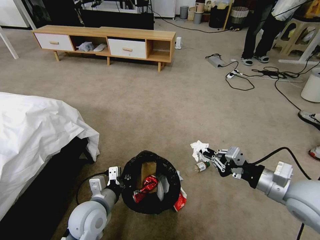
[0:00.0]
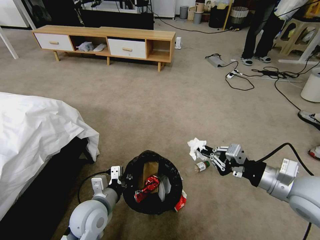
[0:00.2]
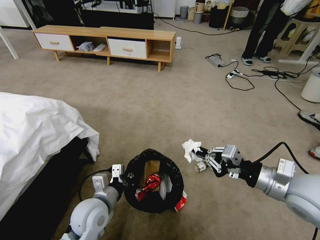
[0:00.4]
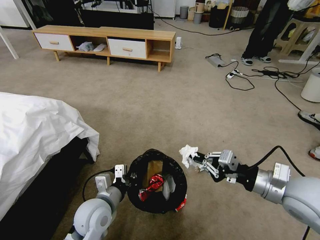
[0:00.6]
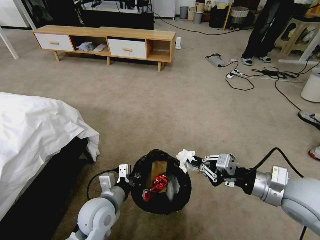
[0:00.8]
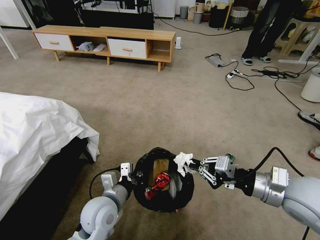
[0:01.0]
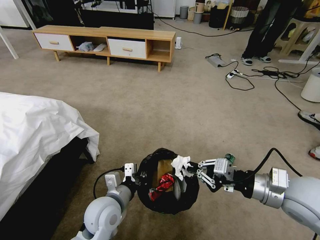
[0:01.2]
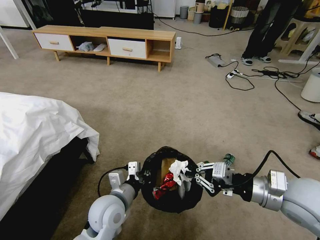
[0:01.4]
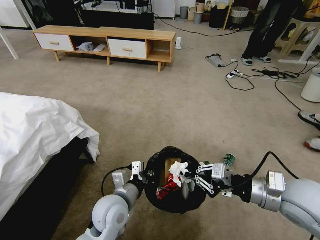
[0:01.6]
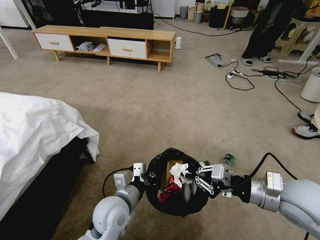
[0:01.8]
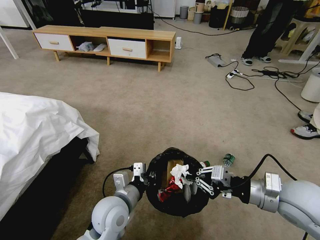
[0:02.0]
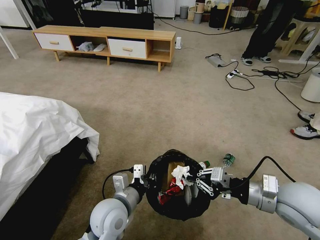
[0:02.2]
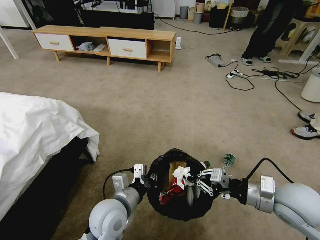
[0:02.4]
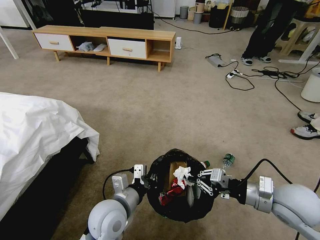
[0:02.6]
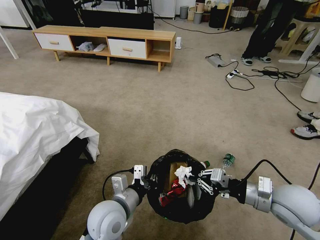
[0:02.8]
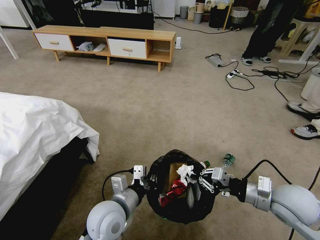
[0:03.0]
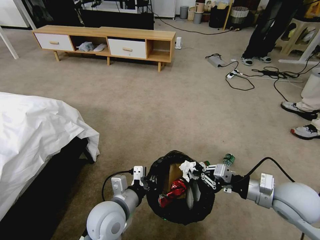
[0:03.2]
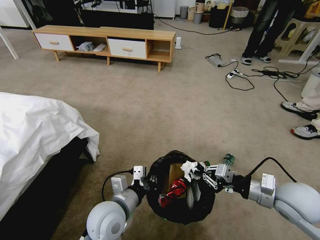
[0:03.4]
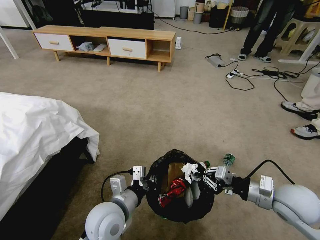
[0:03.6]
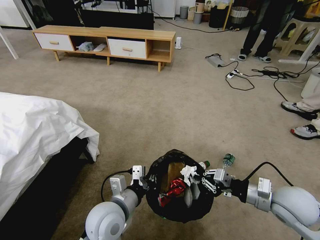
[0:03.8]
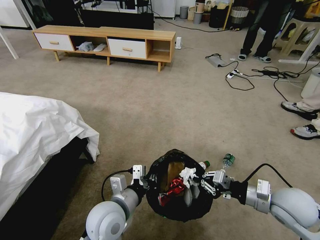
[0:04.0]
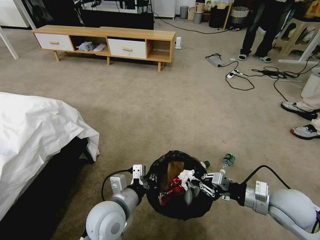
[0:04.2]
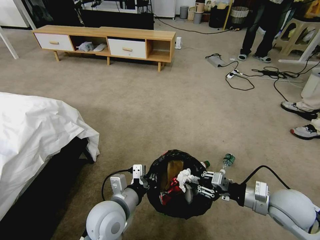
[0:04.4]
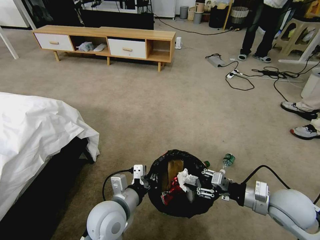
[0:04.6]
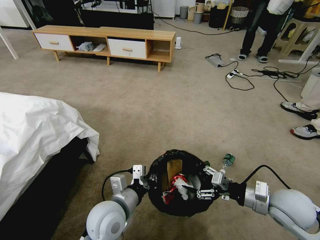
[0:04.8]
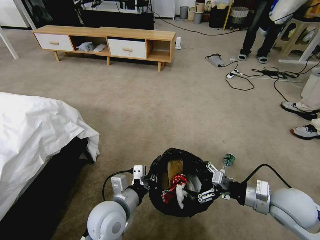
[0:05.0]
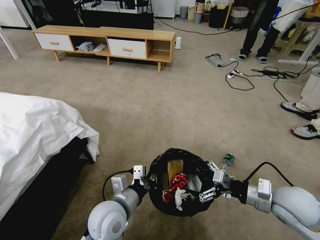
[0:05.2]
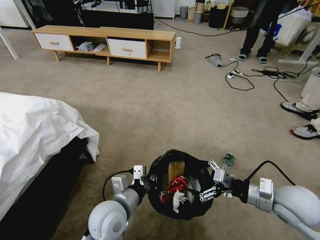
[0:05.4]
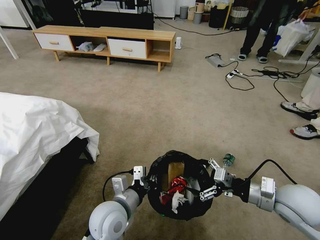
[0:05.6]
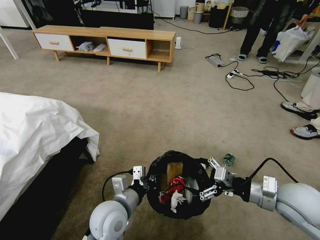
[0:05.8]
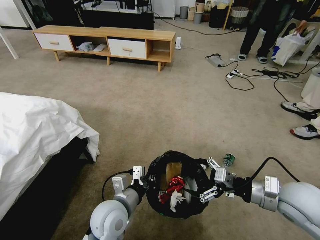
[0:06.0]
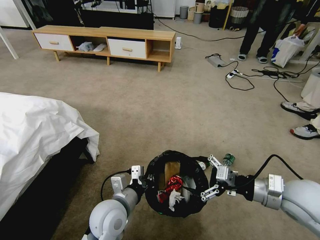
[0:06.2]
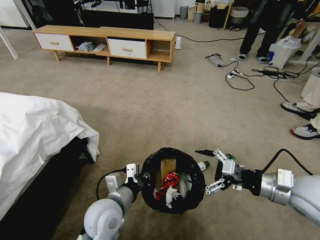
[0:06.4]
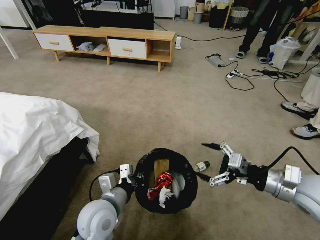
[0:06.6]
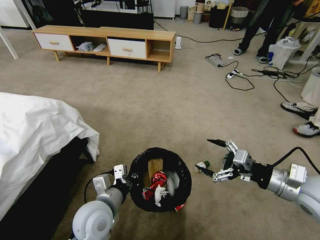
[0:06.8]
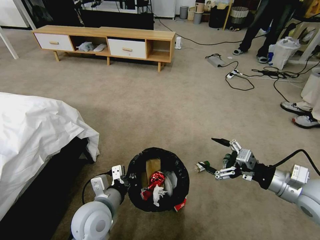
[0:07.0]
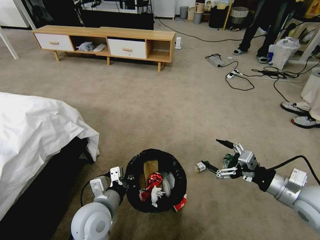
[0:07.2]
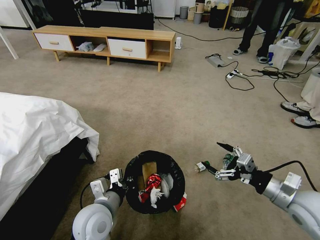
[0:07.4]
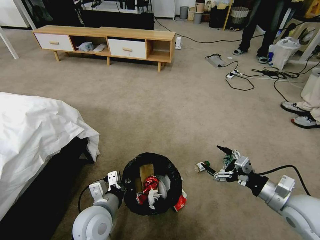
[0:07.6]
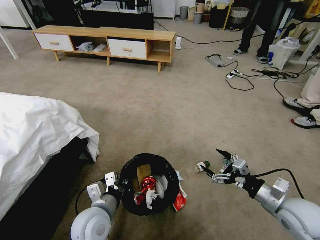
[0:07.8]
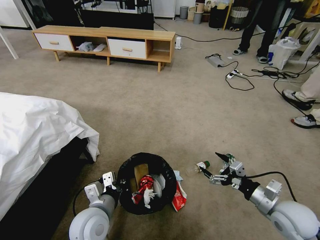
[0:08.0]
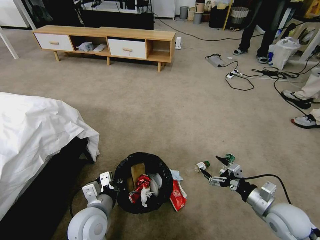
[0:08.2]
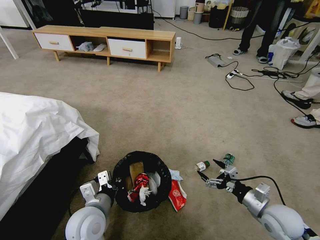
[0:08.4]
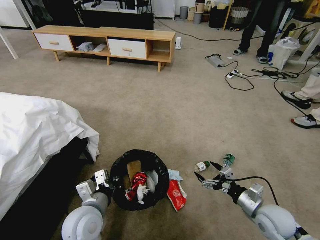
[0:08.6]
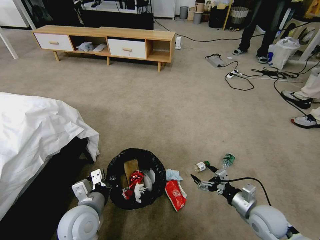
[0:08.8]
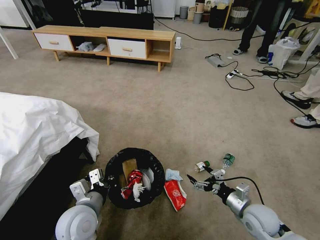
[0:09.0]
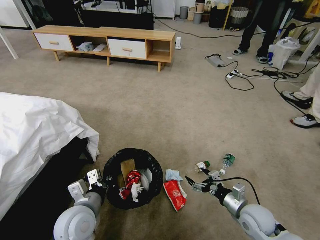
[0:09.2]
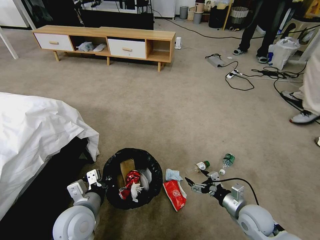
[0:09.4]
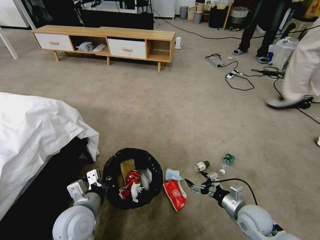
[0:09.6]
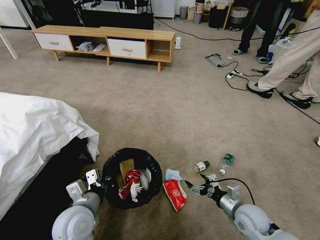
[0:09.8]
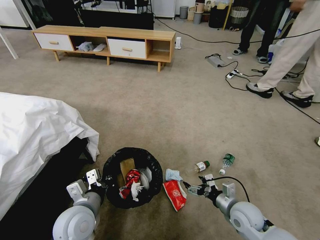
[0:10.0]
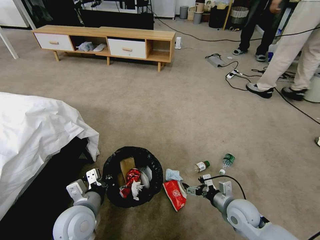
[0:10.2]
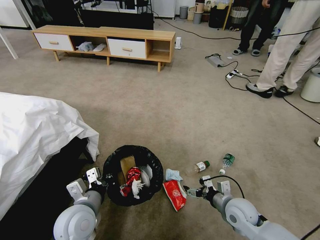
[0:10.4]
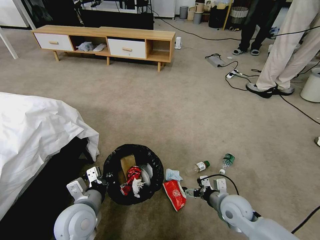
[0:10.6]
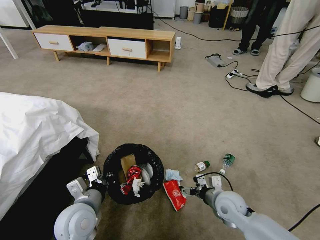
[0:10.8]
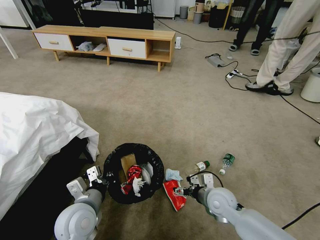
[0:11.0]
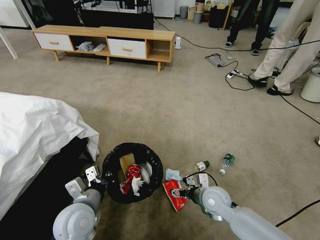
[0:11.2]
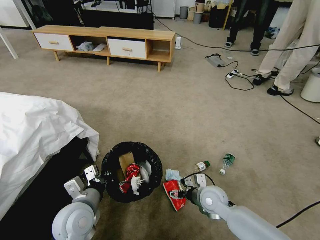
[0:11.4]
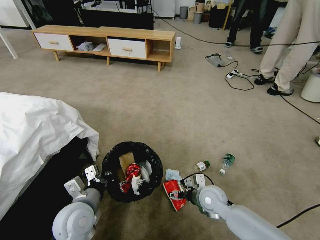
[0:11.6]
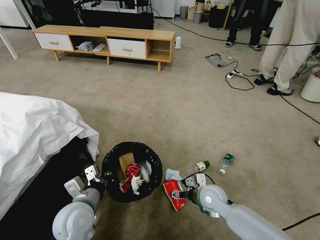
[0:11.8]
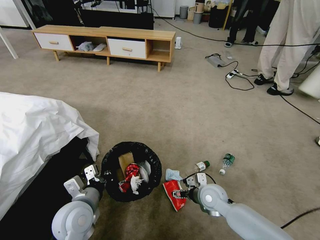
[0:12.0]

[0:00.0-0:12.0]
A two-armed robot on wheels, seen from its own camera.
Task of the whole recording: Pick up the trash bin and place the garbage on the floor into it.
0:00.0 to 0:01.6: The left gripper heads to the right, covering some 5 cm.
0:01.6 to 0:03.0: The right gripper goes roughly 5 cm downward.
0:03.0 to 0:04.4: The grippers stay close to where they were, moving slightly.
0:04.4 to 0:06.0: The right gripper opens.
0:06.0 to 0:07.6: The right gripper shifts by about 5 cm.
0:07.6 to 0:09.0: The right gripper travels downward and to the left by approximately 15 cm.
0:09.0 to 0:10.4: The right gripper shifts by roughly 5 cm.
0:10.4 to 0:12.0: The right gripper goes about 10 cm to the left and forward.

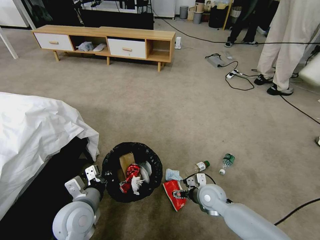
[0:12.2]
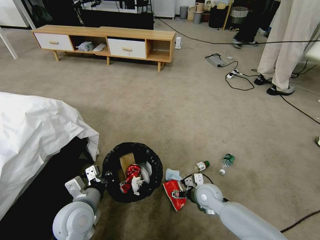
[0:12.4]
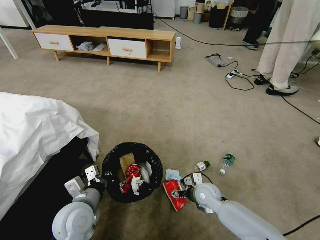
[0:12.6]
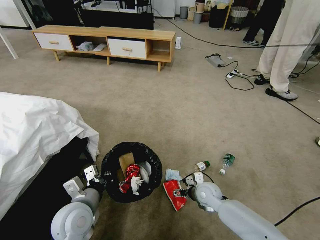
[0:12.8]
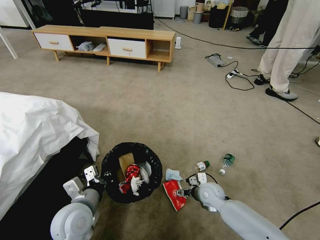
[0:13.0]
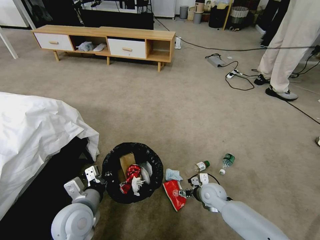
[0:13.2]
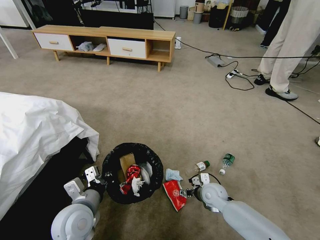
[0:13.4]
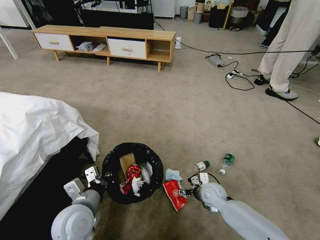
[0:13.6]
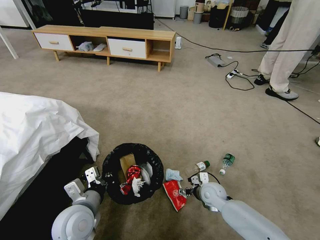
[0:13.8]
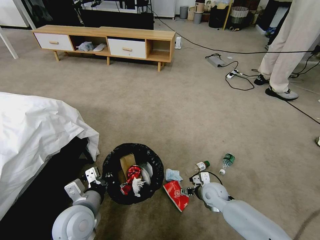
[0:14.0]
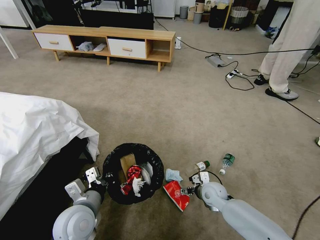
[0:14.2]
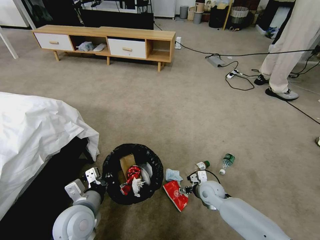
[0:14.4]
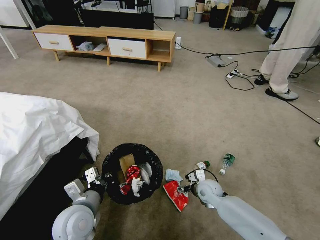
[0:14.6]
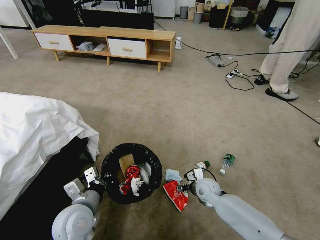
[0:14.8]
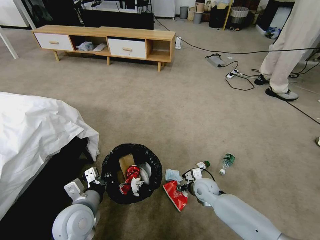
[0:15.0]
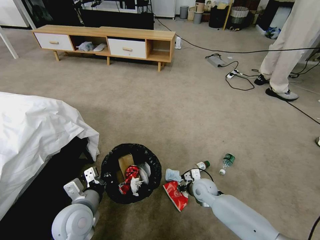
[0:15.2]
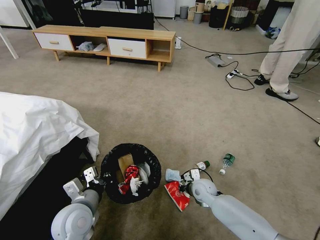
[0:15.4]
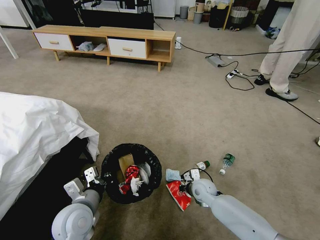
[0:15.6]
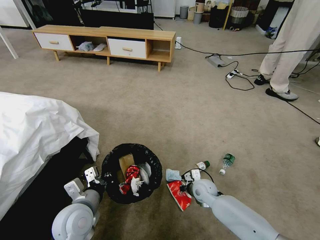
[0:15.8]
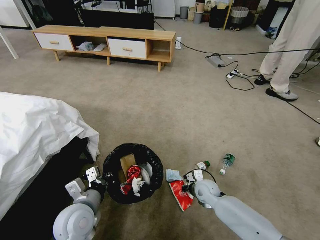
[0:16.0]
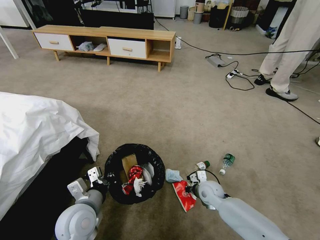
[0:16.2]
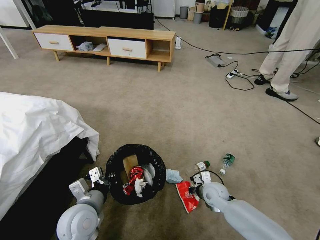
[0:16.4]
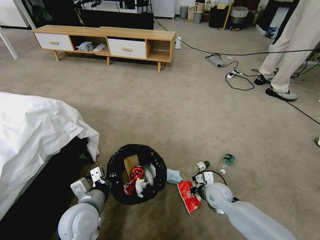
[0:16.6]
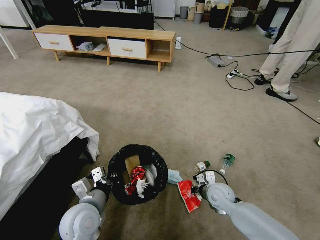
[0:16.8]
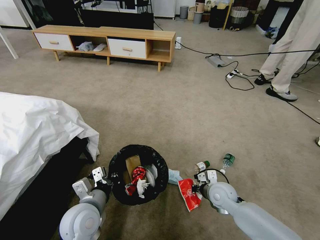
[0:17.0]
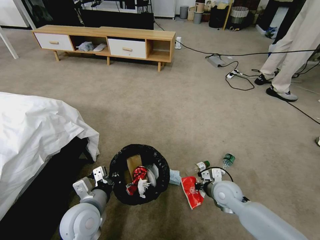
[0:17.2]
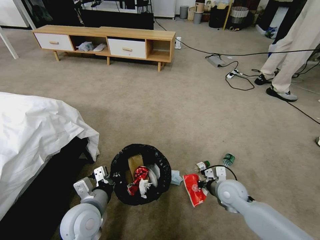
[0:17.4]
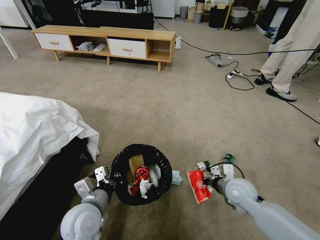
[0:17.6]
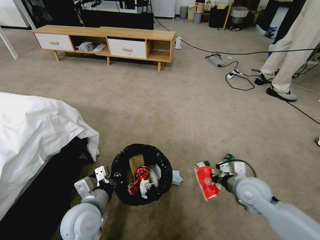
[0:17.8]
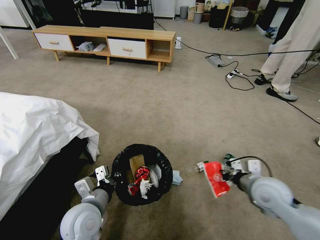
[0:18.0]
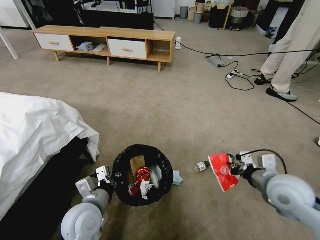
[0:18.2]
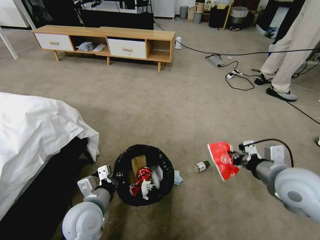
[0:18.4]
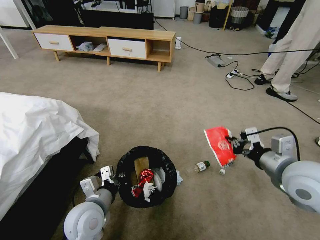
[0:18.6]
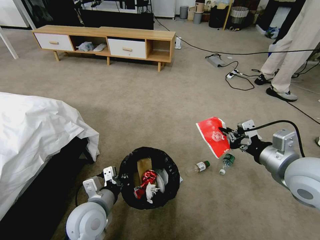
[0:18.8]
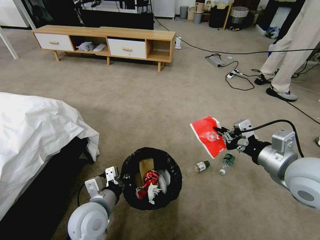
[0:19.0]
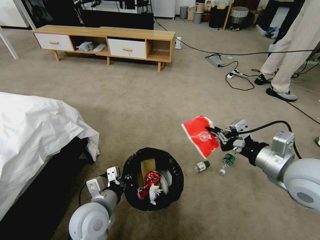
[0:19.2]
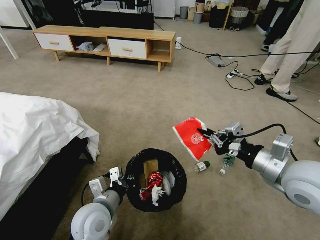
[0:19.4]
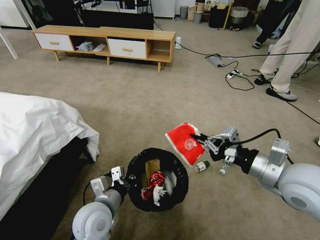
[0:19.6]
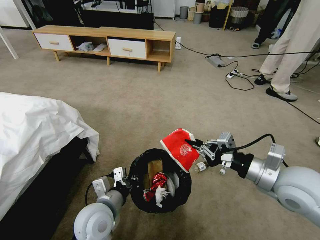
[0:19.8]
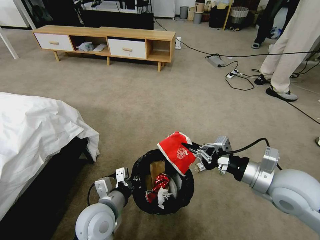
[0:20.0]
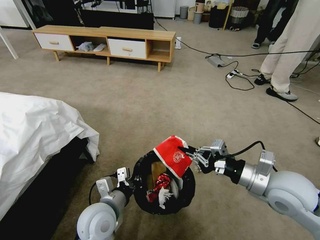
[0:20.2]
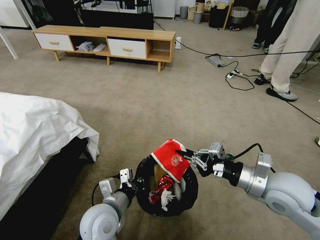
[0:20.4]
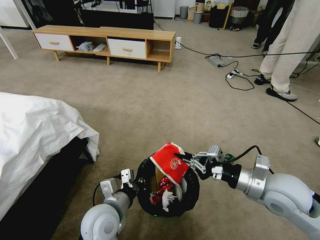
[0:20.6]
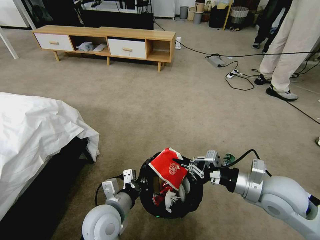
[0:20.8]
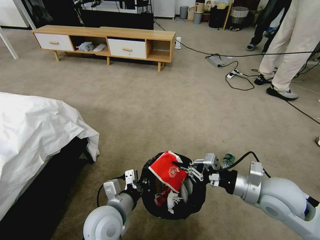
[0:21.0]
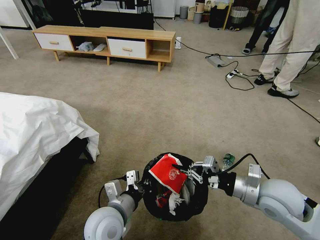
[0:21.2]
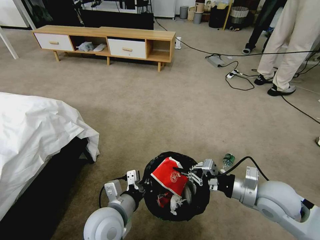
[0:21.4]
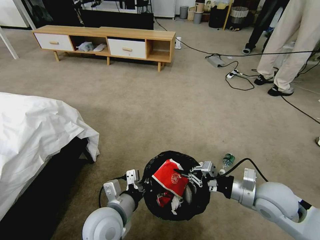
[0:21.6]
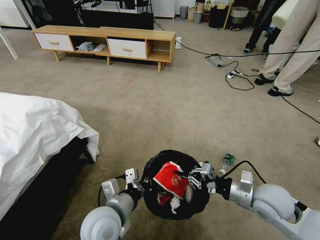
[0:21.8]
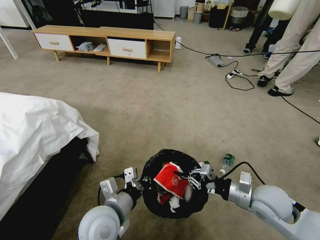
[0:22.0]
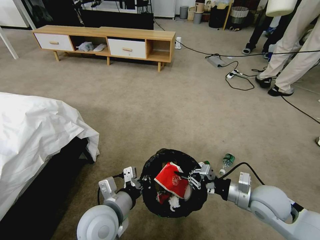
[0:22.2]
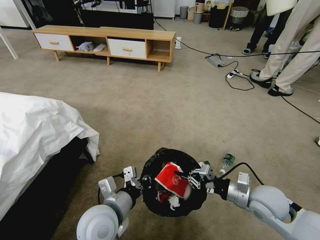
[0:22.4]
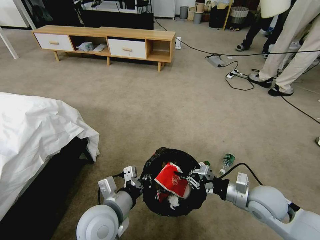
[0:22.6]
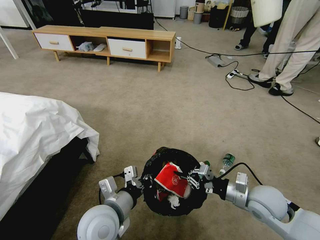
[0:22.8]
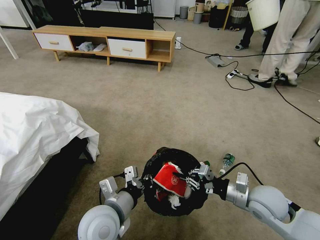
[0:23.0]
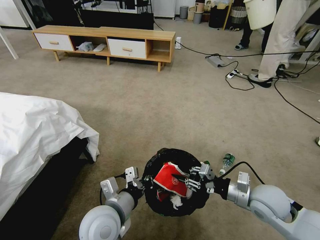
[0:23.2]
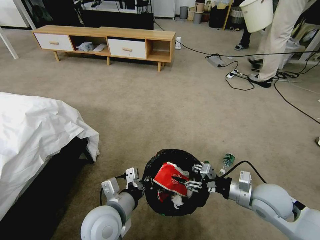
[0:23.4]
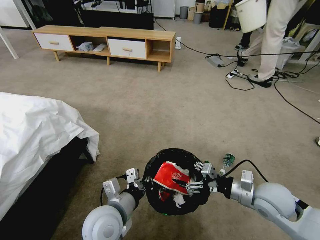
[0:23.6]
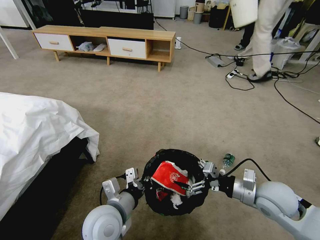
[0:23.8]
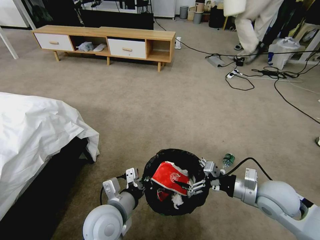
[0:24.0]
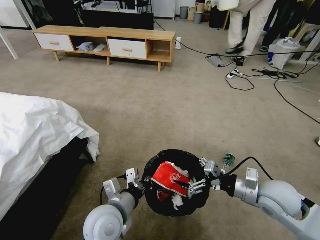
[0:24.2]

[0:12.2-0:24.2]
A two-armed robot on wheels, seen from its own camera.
Task of the whole recording: Pick up the trash bin and place the garbage on the floor into it.
0:12.2 to 0:13.8: The grippers make only small movements.
0:13.8 to 0:15.2: The right gripper closes its fingers.
0:15.2 to 0:16.6: The right gripper moves approximately 5 cm, and closes up.
0:16.6 to 0:18.2: The right gripper moves upward and to the right, approximately 25 cm.
0:18.2 to 0:19.8: The right gripper is displaced upward by about 5 cm.
0:19.8 to 0:21.2: The right gripper goes approximately 5 cm downward.
0:21.2 to 0:22.6: The right gripper is displaced downward by about 5 cm.
0:22.6 to 0:24.2: The right gripper opens up.
